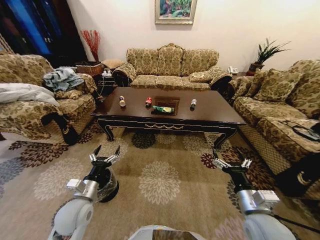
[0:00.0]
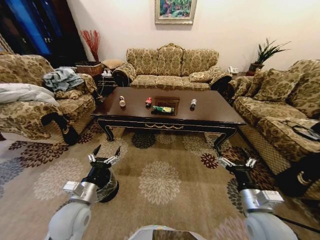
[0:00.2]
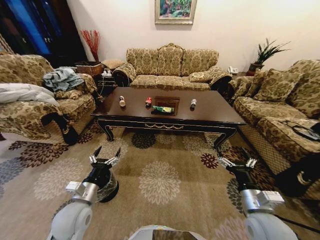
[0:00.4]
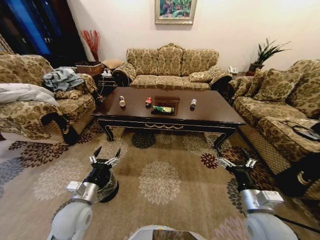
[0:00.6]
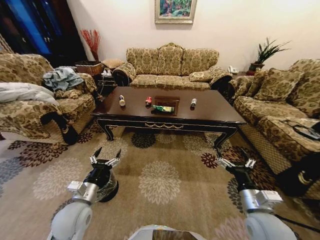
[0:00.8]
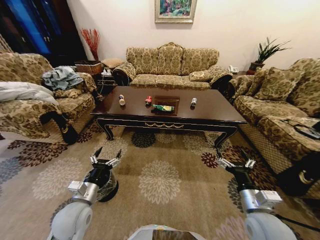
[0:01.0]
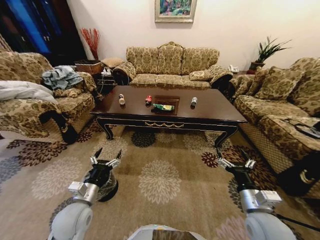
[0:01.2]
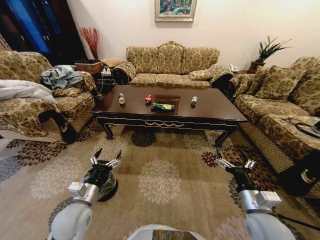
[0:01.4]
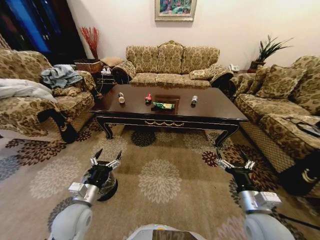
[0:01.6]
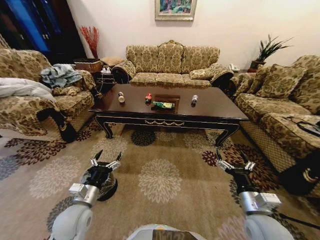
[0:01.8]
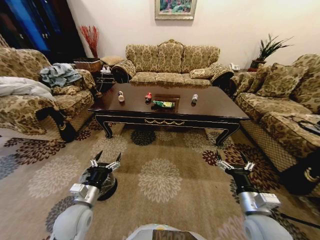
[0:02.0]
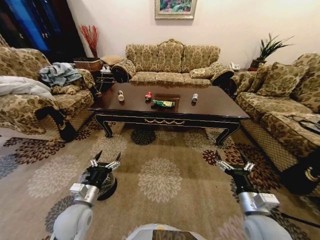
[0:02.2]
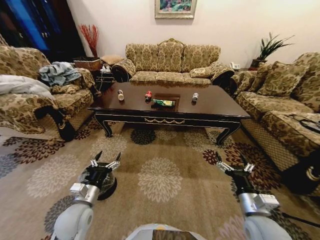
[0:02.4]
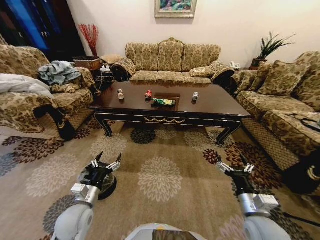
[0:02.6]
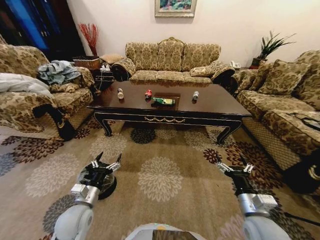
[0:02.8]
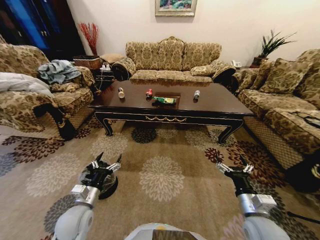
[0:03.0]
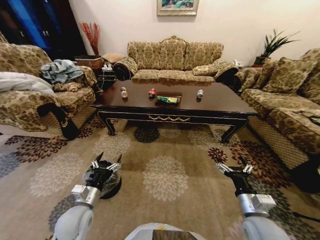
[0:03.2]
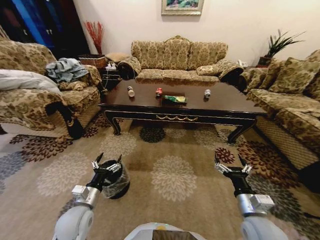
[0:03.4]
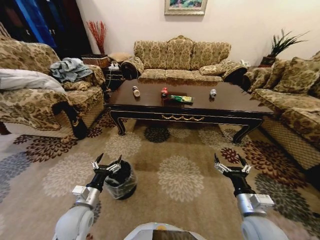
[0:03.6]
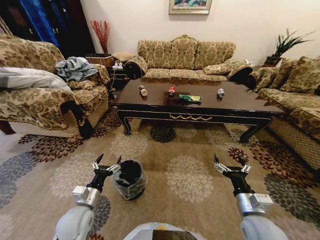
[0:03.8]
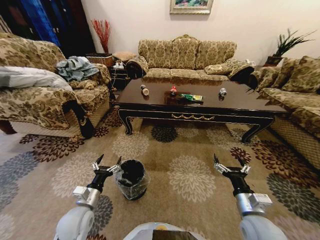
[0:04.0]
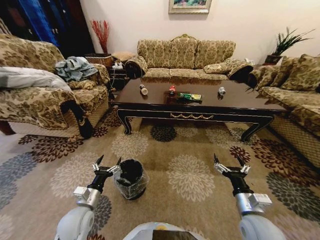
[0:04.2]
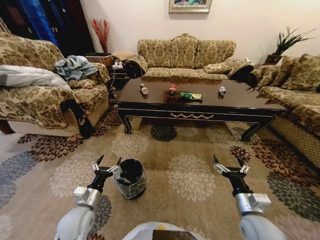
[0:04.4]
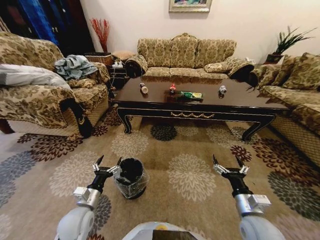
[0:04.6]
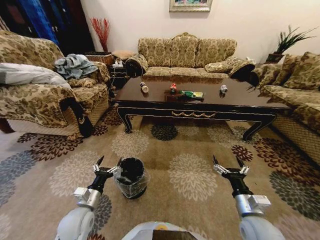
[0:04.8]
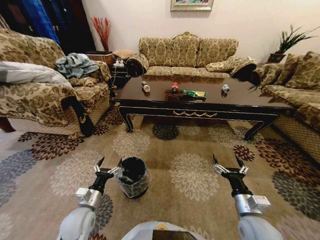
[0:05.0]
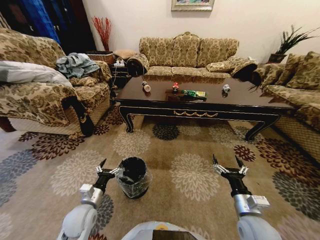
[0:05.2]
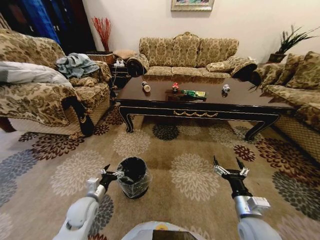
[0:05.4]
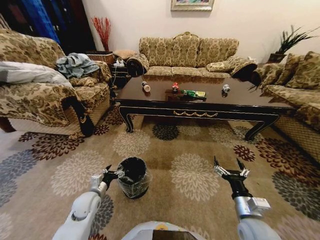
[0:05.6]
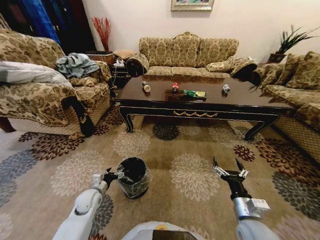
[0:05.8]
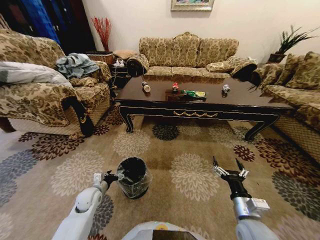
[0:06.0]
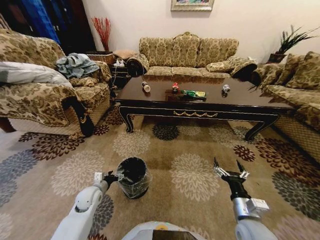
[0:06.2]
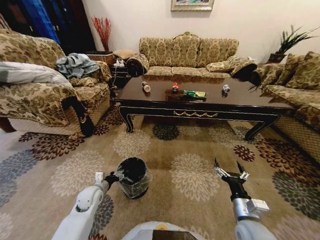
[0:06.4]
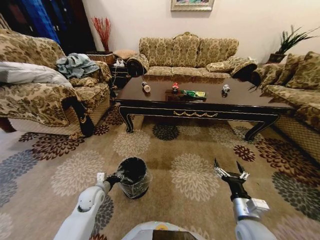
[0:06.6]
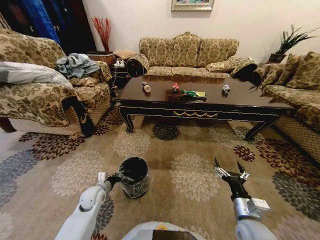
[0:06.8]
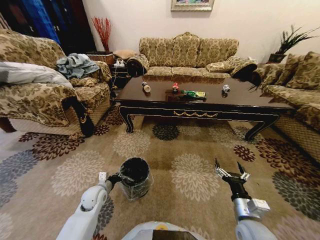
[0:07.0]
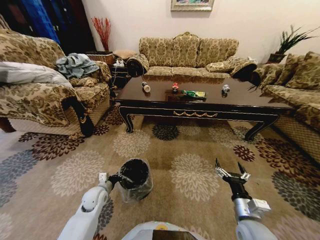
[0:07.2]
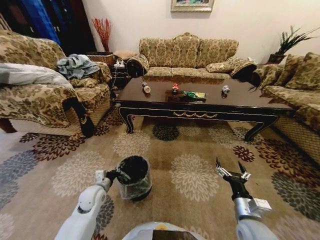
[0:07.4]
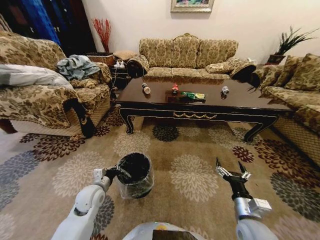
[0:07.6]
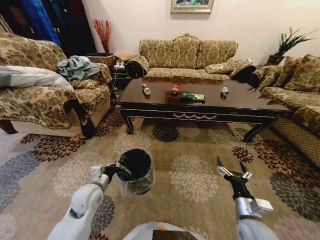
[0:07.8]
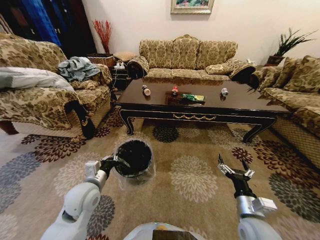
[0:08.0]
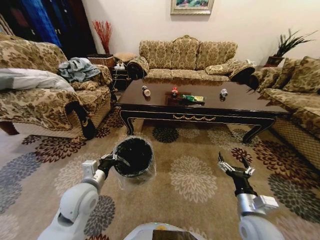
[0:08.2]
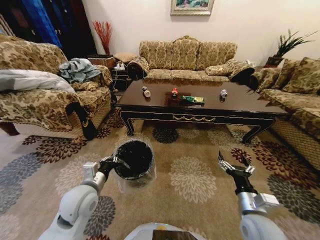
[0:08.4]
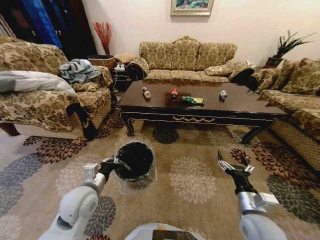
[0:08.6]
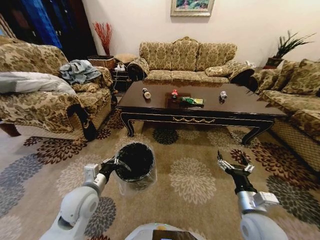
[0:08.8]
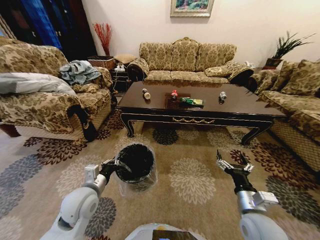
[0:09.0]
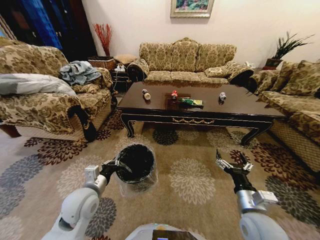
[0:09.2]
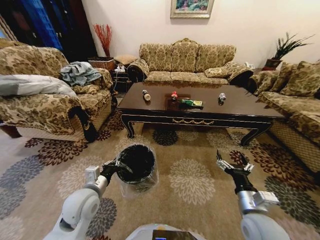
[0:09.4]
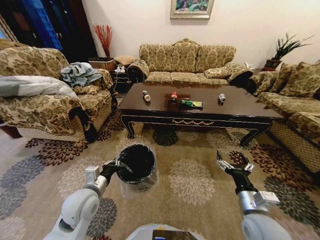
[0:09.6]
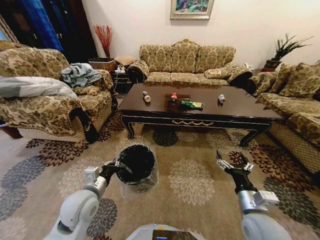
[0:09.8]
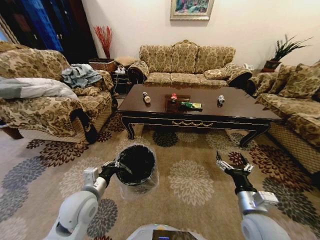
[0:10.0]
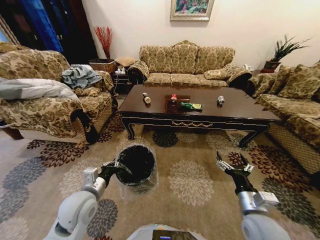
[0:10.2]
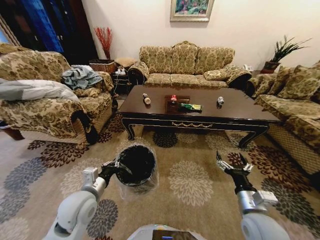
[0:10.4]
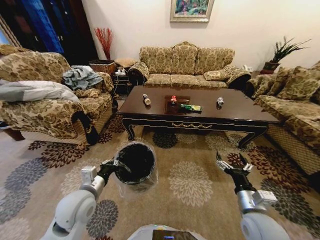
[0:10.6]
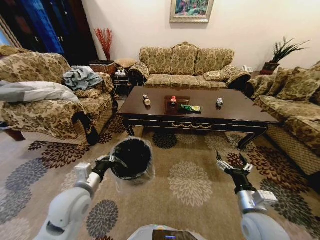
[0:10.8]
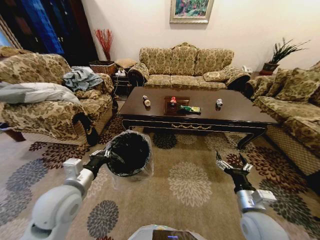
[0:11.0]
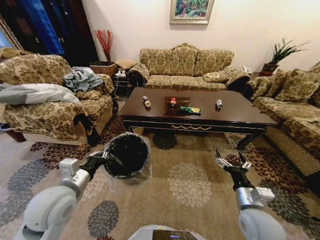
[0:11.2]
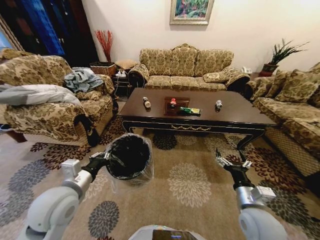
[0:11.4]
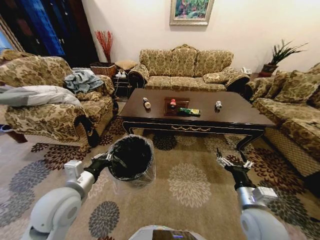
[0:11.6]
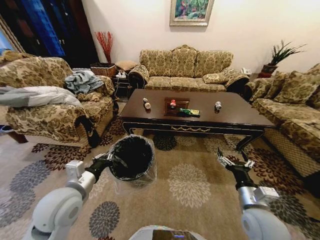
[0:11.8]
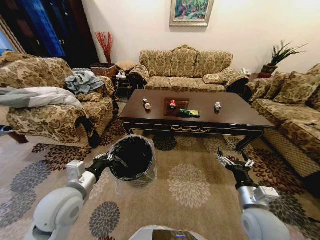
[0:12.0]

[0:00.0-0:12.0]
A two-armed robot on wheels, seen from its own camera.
Task of the whole recording: Move to the front of the table and place the trash on the table into the trash bin.
0:04.4 to 0:06.0: The left gripper moves forward and downward, about 10 cm.
0:06.0 to 0:07.6: The left gripper heads upward, covering roughly 5 cm, and closes up.
0:07.6 to 0:09.0: The left gripper heads upward, covering about 10 cm.
0:10.4 to 0:12.0: The left gripper is displaced upward by approximately 5 cm.

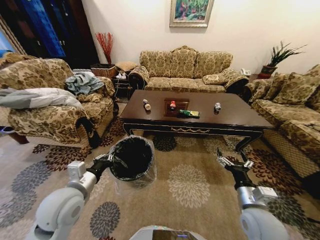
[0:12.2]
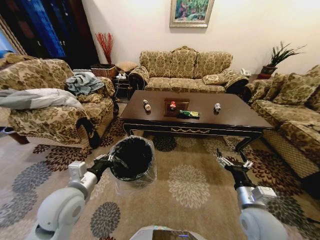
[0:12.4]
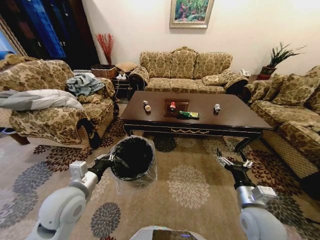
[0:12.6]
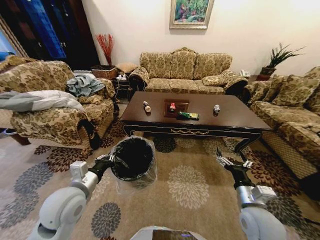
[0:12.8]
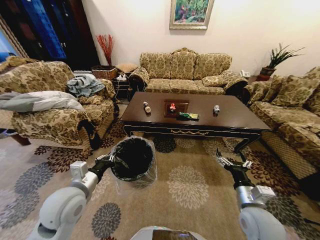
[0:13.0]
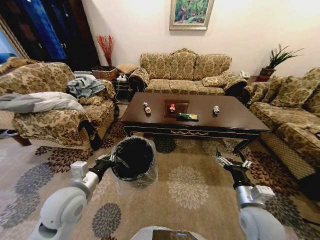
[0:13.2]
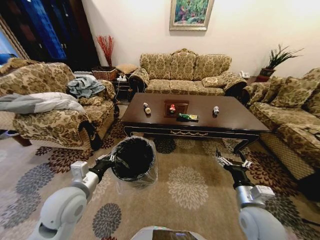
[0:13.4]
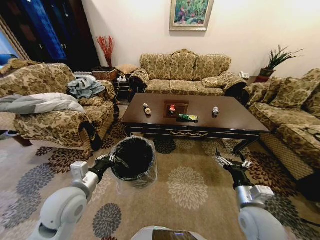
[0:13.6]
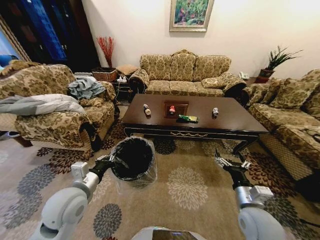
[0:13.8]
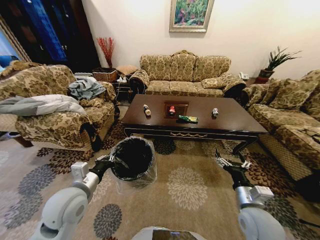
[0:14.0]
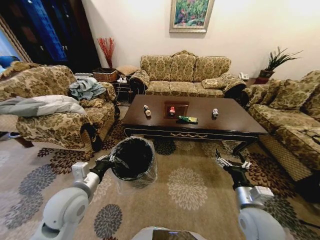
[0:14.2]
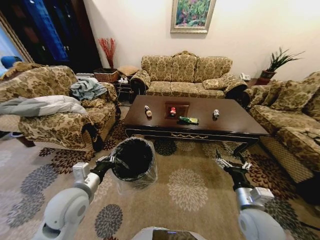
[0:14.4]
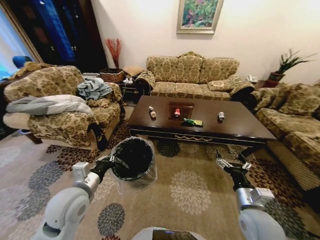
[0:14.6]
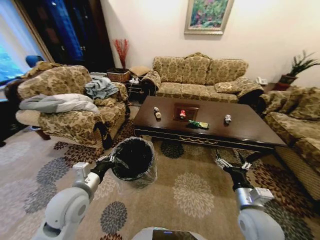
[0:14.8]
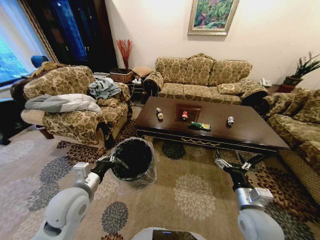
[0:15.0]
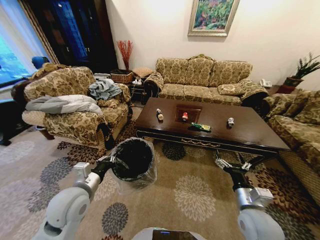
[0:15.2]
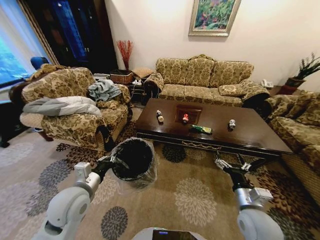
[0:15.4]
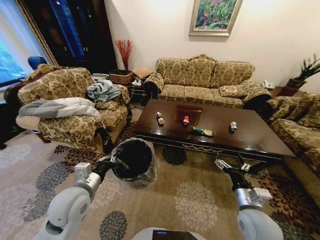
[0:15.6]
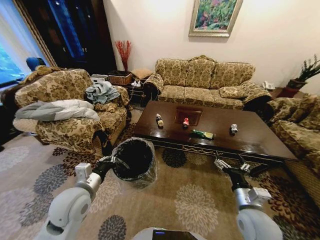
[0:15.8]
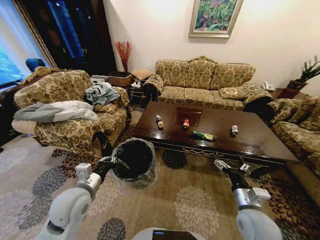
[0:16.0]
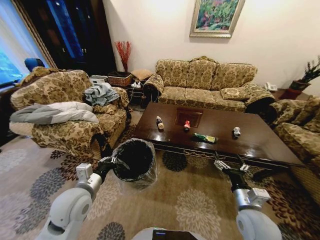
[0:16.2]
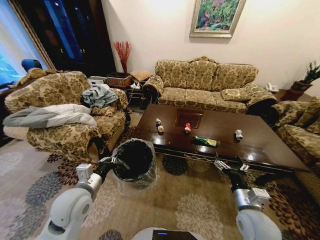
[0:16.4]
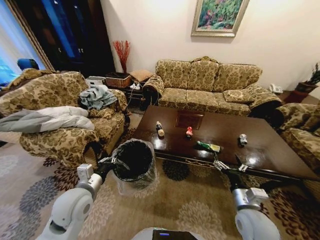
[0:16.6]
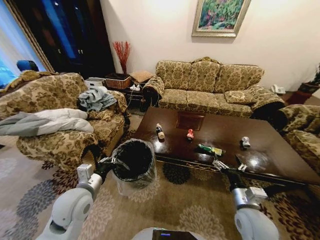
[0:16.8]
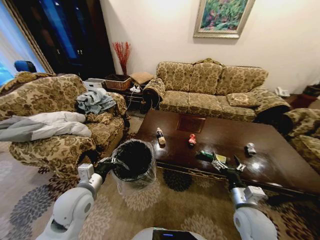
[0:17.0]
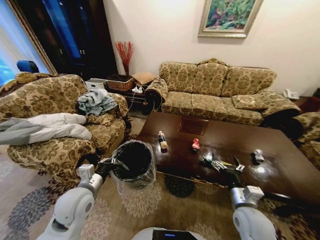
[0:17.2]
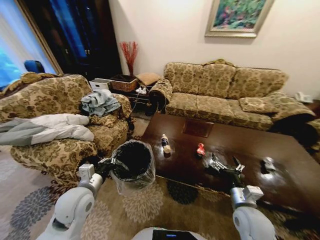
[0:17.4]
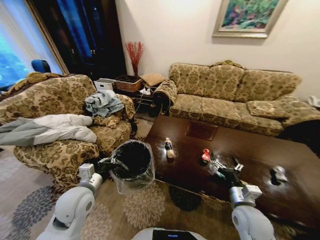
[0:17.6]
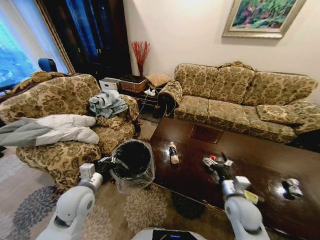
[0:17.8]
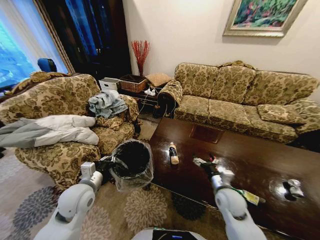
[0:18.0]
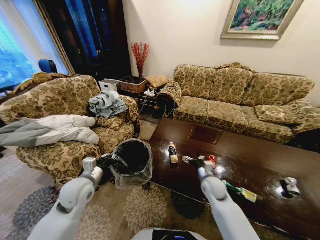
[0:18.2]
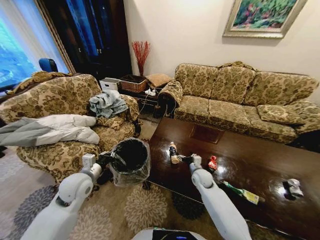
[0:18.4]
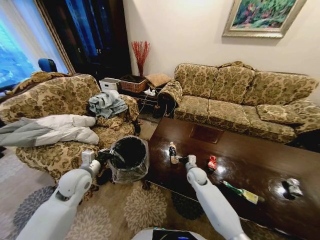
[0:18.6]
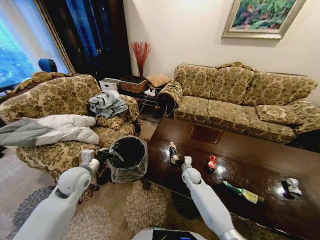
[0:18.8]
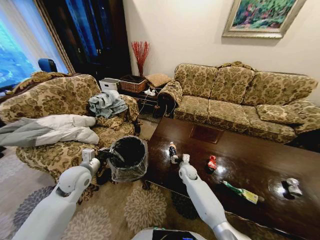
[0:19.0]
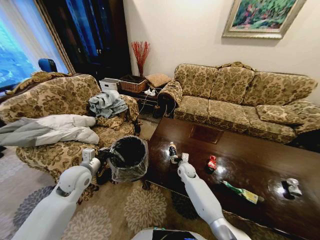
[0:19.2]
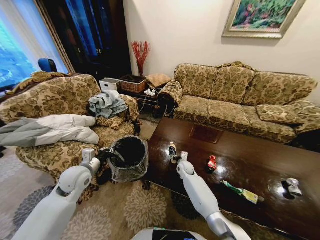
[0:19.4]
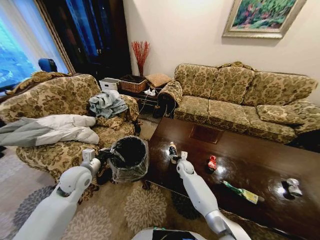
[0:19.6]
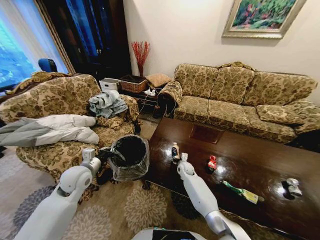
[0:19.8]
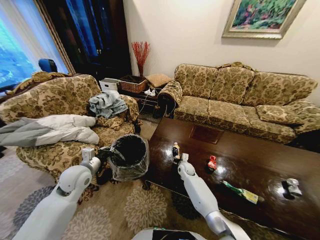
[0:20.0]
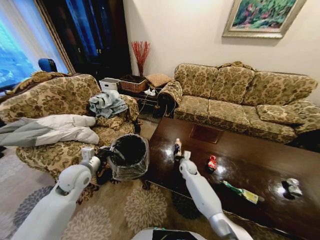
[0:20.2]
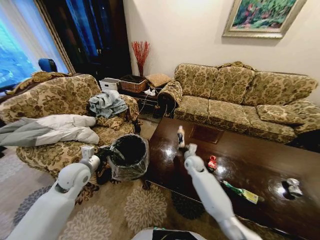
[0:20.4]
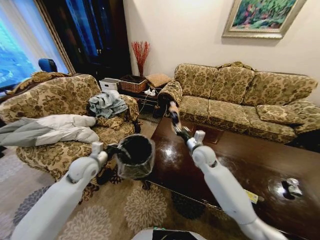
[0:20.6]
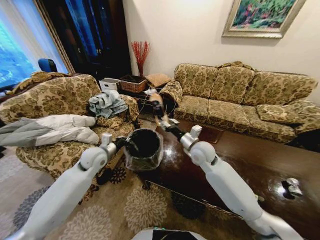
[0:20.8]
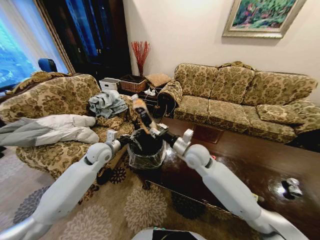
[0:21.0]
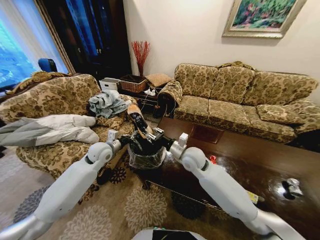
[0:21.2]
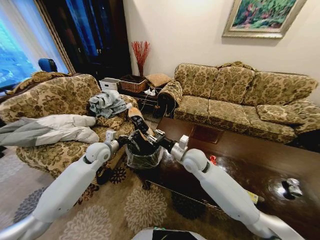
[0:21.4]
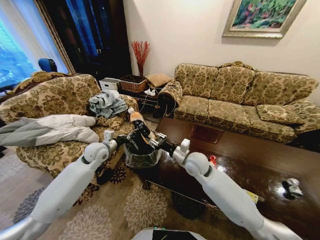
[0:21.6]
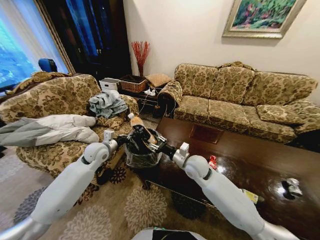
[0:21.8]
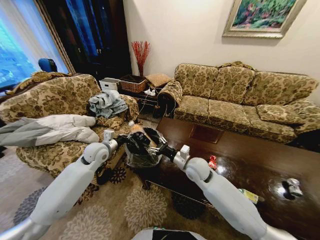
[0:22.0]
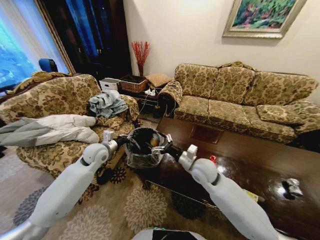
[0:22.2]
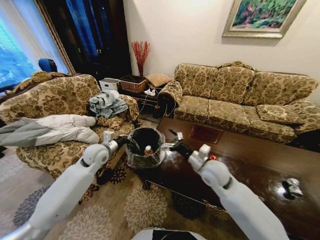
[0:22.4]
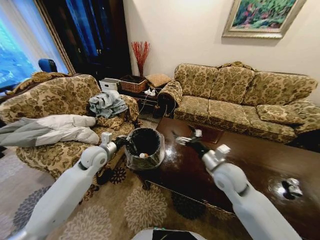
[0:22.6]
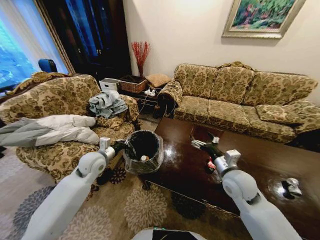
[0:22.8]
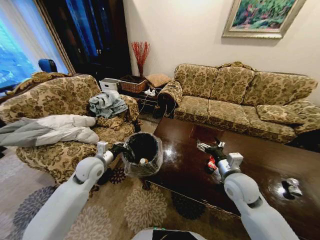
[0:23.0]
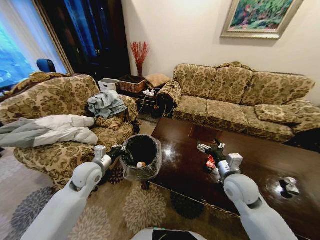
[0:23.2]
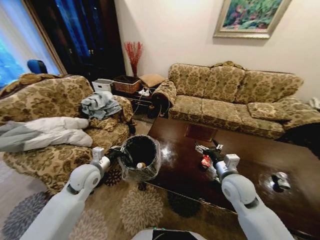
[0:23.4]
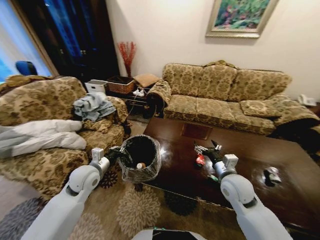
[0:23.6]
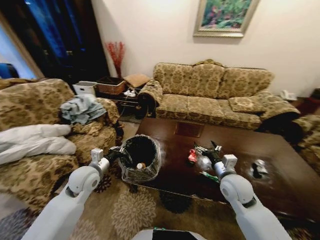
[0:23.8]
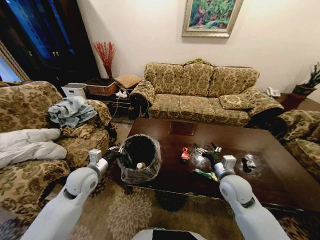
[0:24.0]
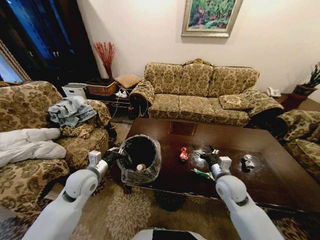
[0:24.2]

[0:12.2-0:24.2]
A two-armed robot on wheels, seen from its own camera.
Task of the whole recording: Move to the front of the table and place the trash on the table into the trash bin.
0:16.6 to 0:18.2: The right gripper is displaced forward and downward by some 15 cm. Meanwhile the left gripper shifts by approximately 5 cm.
0:18.2 to 0:19.8: The left gripper ends up approximately 5 cm from where it was. The right gripper travels forward, downward and to the left by some 20 cm, and closes.
0:19.8 to 0:21.2: The left gripper goes about 10 cm forward, while the right gripper moves upward, approximately 25 cm.
0:21.2 to 0:22.6: The right gripper is displaced to the right and backward by about 15 cm, and opens up.
0:22.6 to 0:24.2: The left gripper heads backward, covering roughly 10 cm. Meanwhile the right gripper goes about 5 cm downward.
